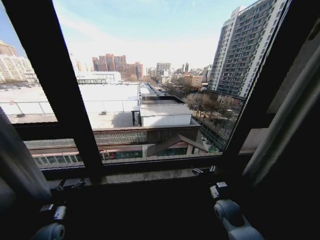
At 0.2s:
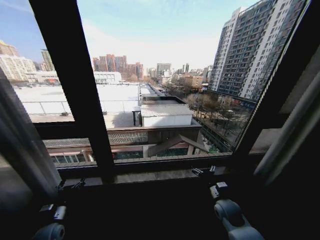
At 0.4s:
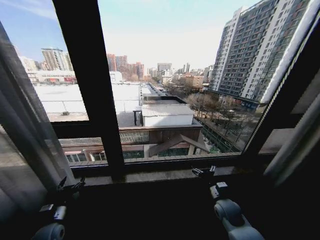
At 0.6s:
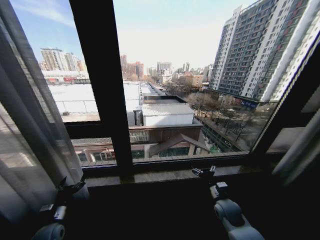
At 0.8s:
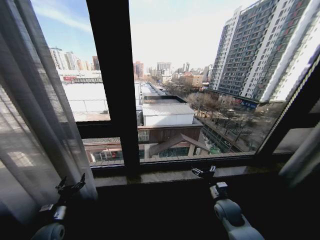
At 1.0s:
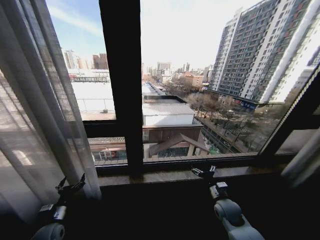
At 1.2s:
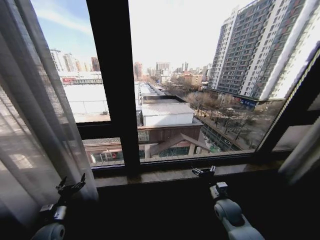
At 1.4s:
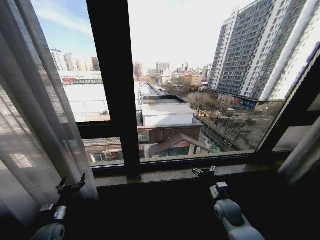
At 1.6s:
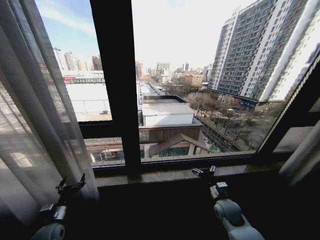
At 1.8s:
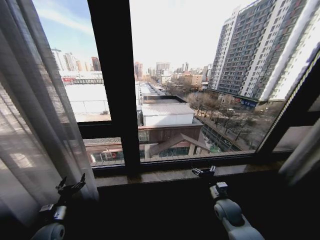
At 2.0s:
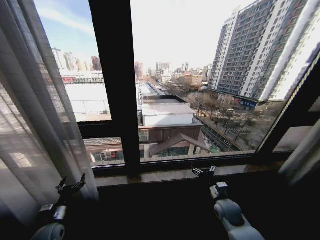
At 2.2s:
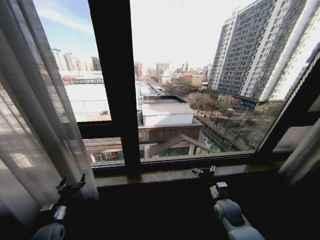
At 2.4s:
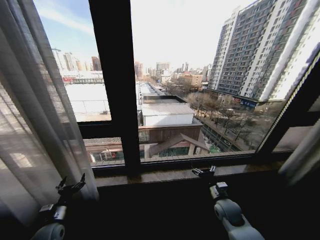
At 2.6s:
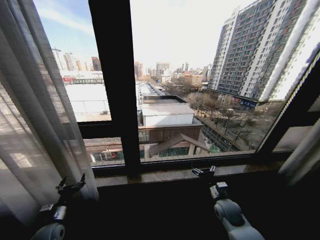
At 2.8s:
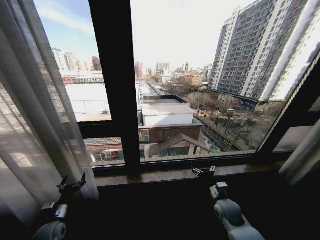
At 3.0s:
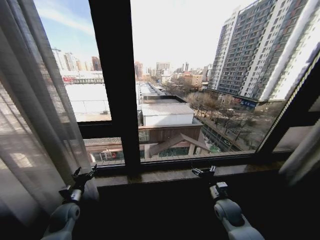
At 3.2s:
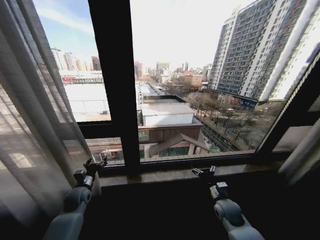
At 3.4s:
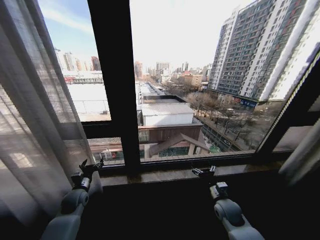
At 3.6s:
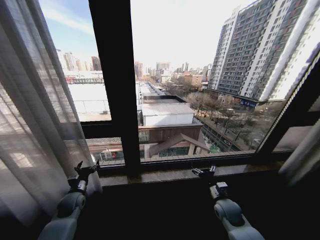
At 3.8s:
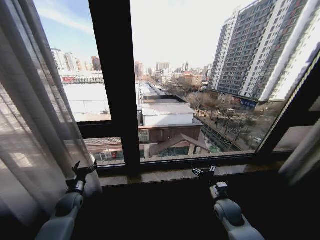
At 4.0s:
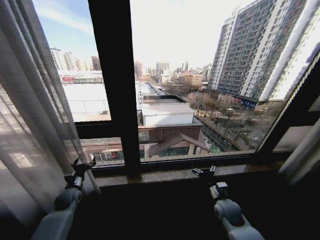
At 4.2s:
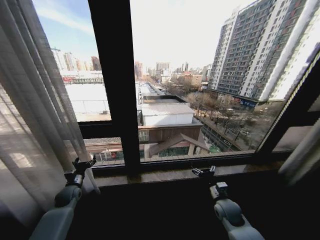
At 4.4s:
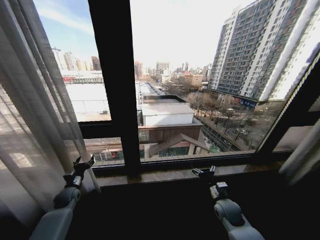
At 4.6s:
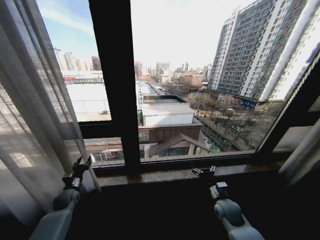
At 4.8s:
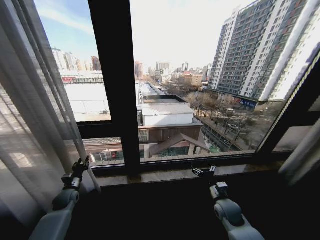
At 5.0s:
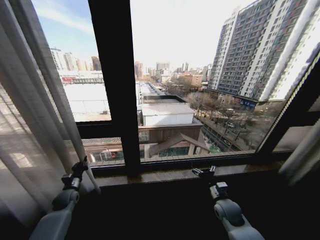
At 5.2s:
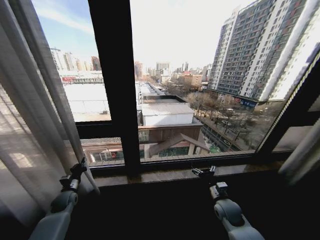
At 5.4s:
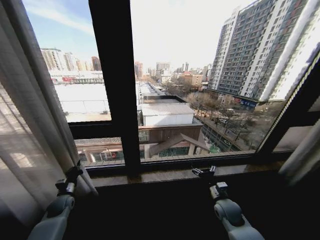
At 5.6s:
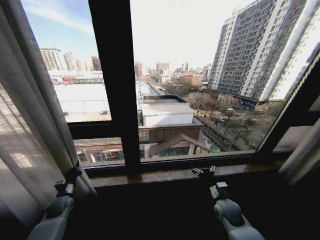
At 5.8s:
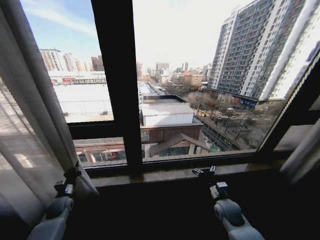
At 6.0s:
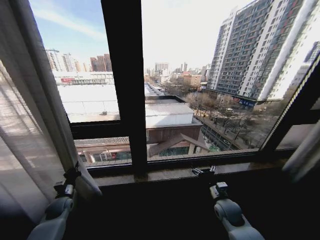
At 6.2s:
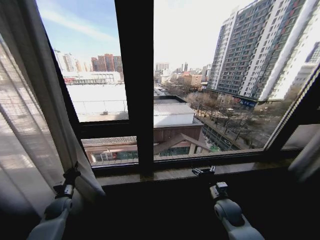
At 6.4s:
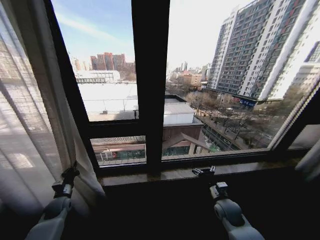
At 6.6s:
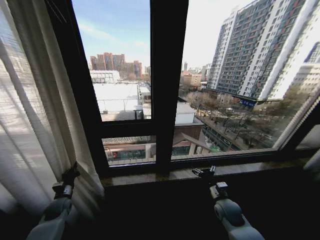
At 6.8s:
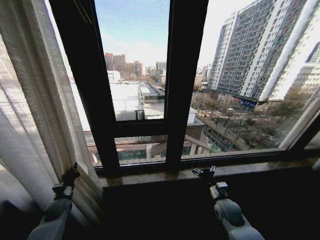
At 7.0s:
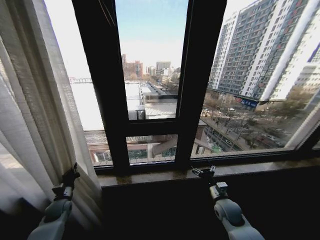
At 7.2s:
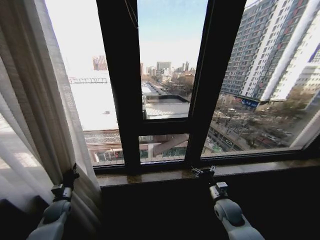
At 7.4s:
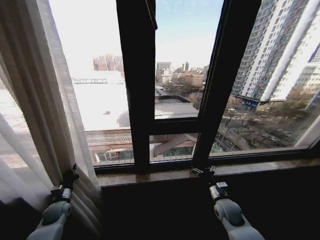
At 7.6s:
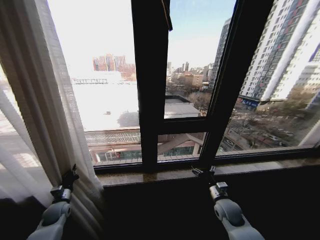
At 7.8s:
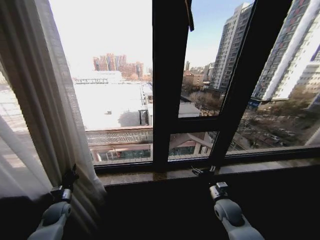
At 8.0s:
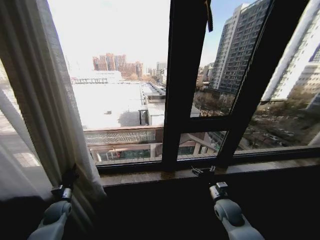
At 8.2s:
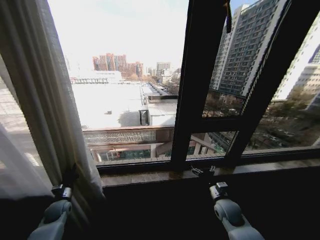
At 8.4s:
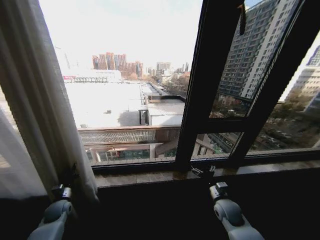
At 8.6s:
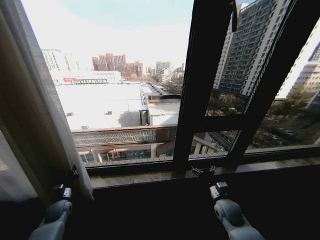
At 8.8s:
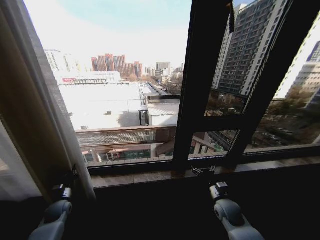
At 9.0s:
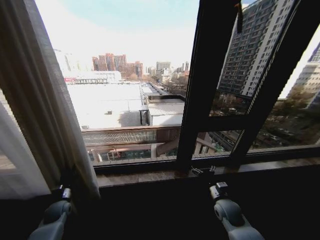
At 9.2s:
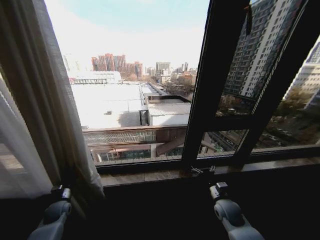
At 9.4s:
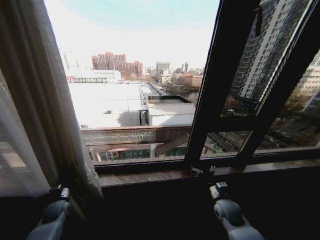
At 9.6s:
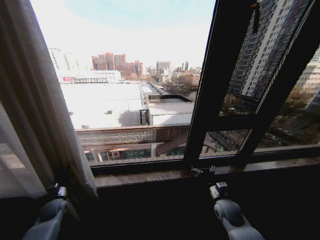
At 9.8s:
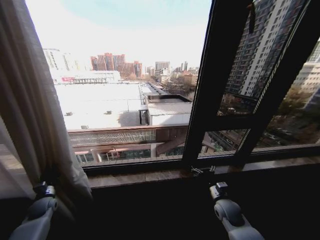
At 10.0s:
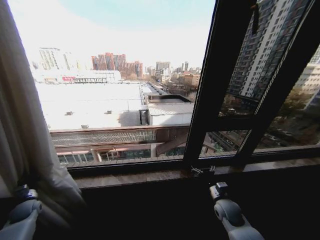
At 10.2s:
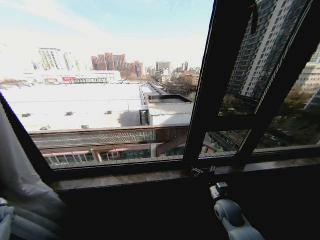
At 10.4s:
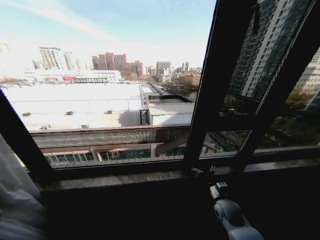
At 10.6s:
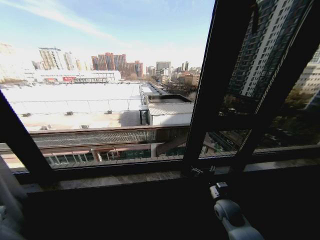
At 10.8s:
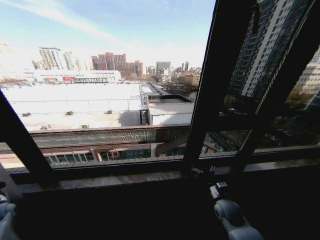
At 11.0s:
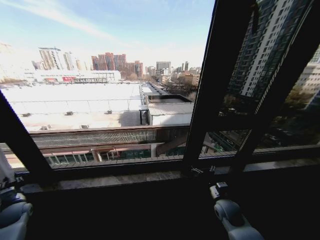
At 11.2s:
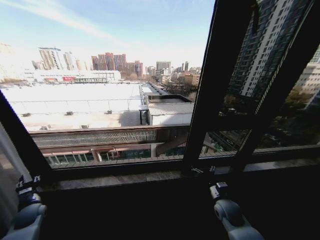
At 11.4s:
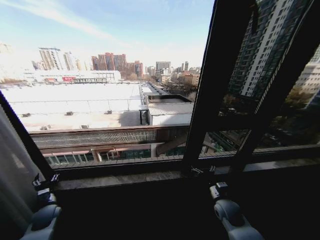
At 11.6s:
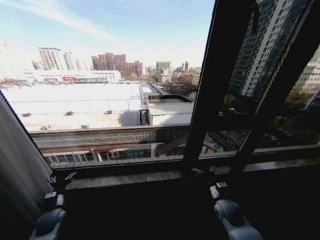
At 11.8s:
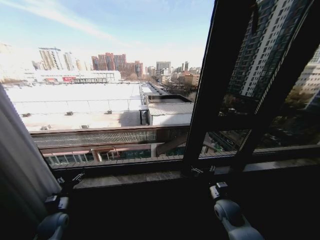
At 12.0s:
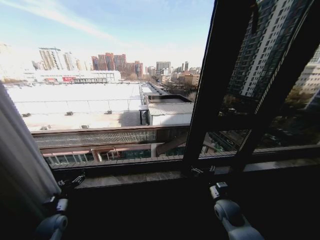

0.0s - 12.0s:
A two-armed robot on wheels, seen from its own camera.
Task of the whole recording: Open the curtains by pulling them apart, changing their state from closed to fully open.
1.6s - 3.0s: The left gripper shifts about 5 cm forward.
3.0s - 4.4s: The left gripper shifts roughly 10 cm forward.
4.4s - 6.0s: The left gripper ends up approximately 5 cm from where it was, and closes.
9.0s - 10.4s: The left gripper travels to the left by approximately 25 cm.
10.4s - 12.0s: The left gripper moves to the right, roughly 25 cm, and opens up.

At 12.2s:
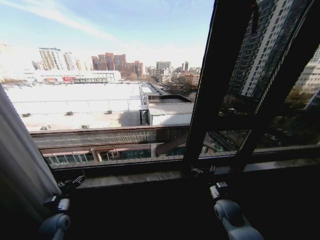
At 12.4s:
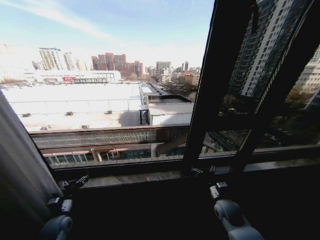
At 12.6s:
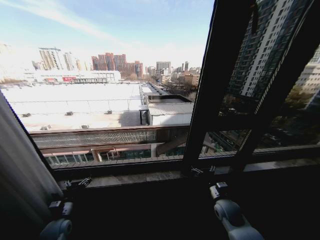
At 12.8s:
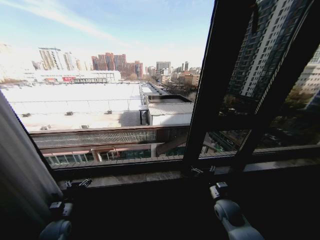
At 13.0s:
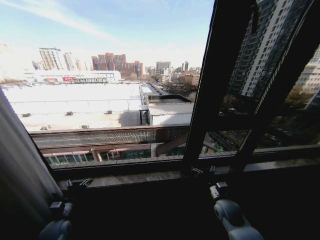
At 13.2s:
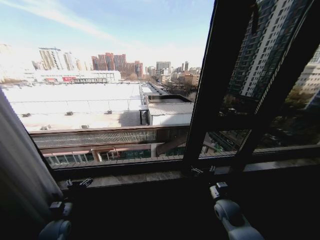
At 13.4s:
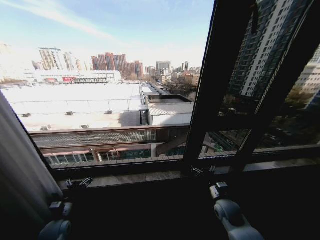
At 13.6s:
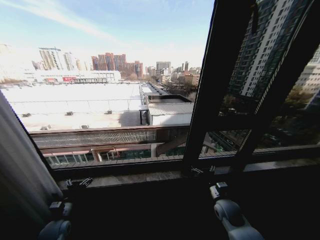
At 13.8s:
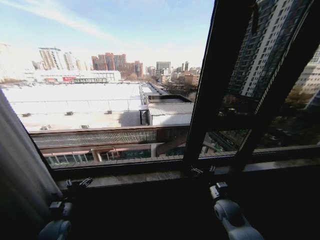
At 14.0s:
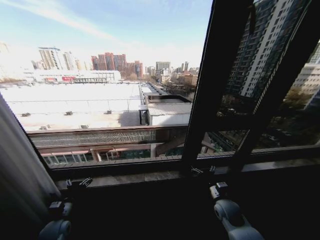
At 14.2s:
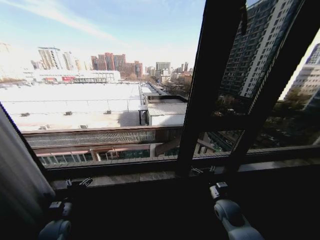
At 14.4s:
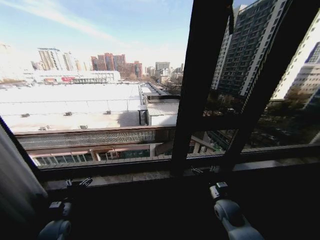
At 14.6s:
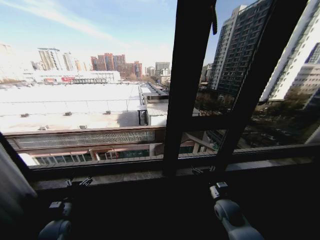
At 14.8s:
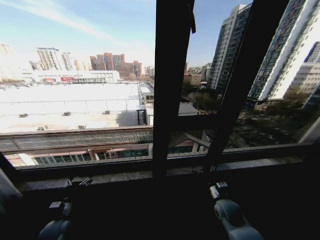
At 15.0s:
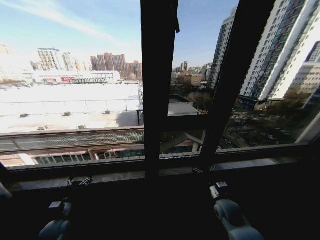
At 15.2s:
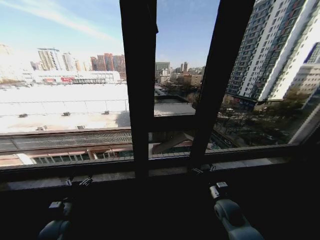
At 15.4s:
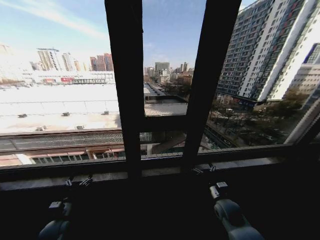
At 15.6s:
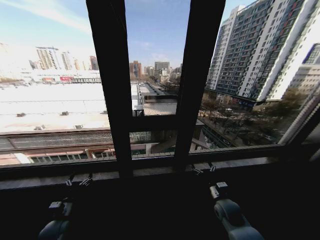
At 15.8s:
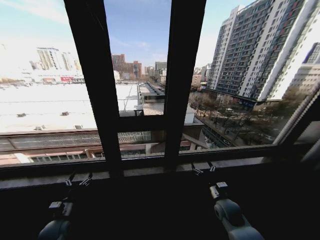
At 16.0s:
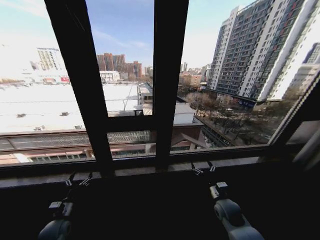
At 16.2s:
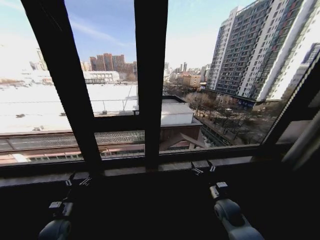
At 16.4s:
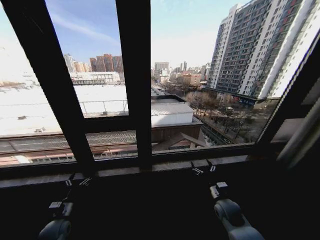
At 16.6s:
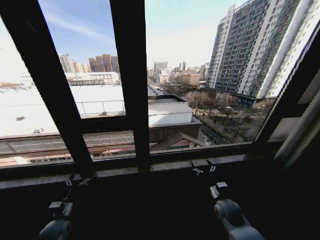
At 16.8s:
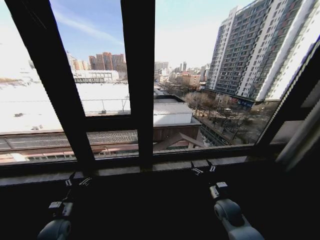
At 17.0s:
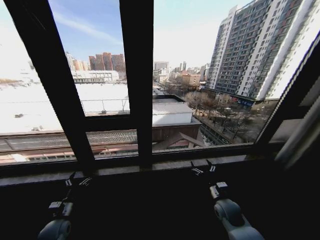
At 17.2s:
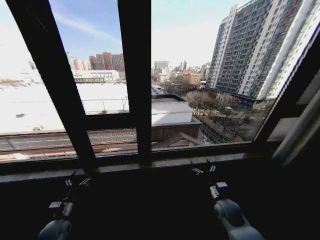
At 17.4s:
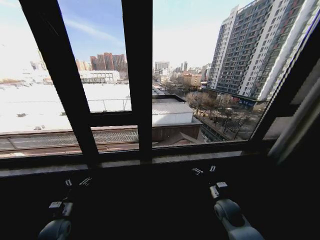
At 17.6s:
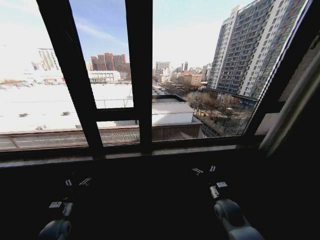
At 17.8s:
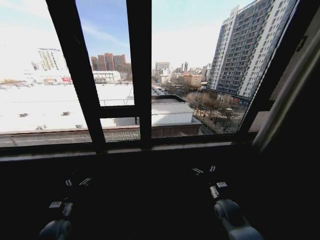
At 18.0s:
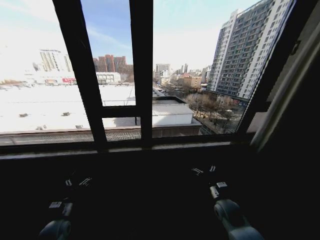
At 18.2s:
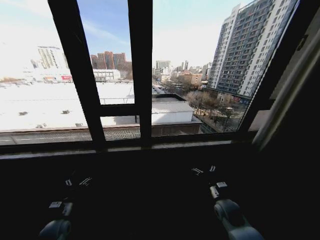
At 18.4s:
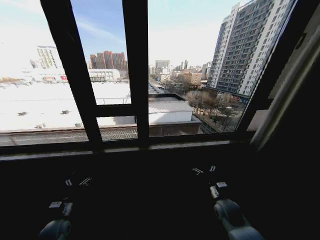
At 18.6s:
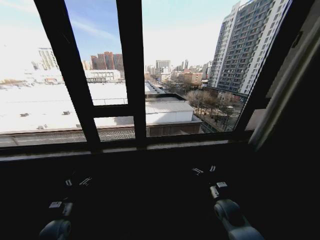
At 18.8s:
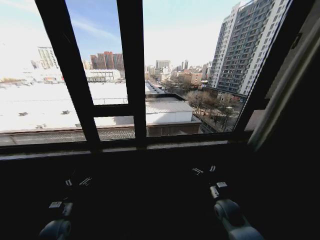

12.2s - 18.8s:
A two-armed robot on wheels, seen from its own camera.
Task of the whole recording: Open the curtains by pulling them apart, changing their state from closed to fully open.
12.2s - 13.8s: The grippers make only small movements.

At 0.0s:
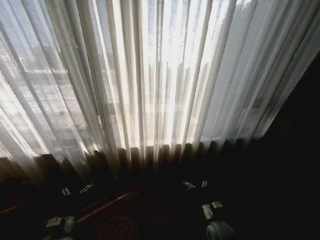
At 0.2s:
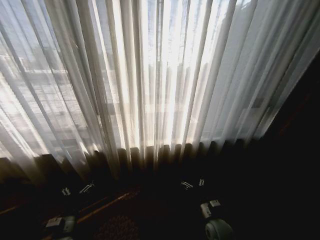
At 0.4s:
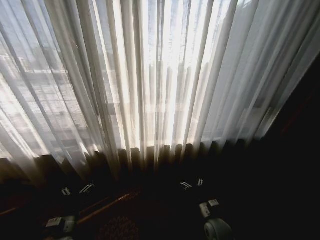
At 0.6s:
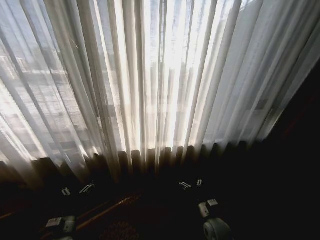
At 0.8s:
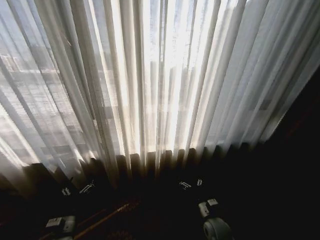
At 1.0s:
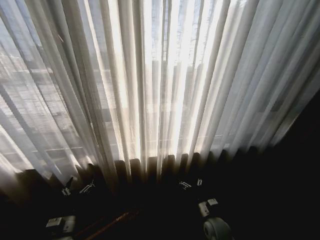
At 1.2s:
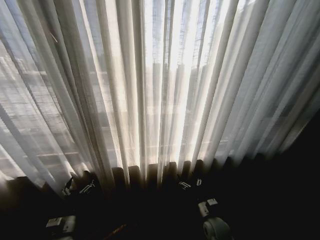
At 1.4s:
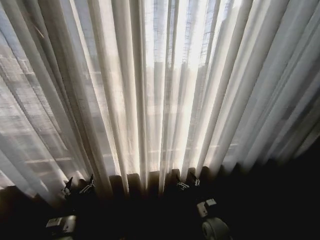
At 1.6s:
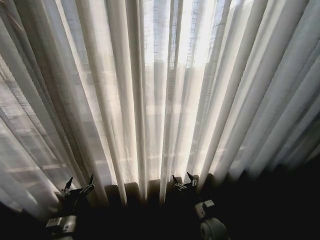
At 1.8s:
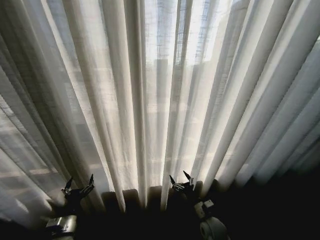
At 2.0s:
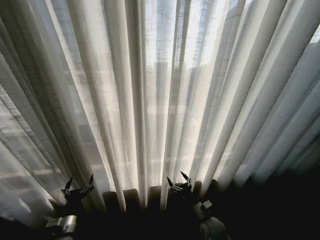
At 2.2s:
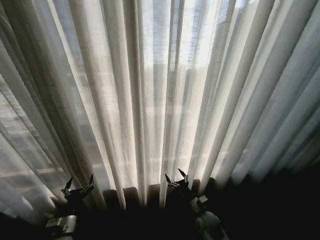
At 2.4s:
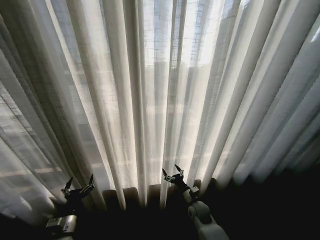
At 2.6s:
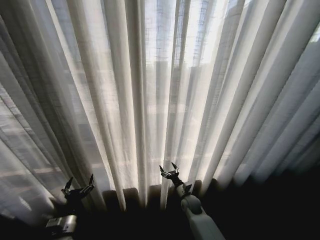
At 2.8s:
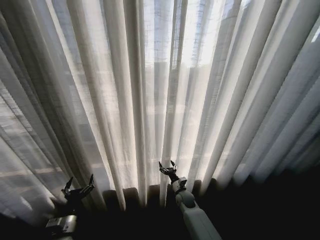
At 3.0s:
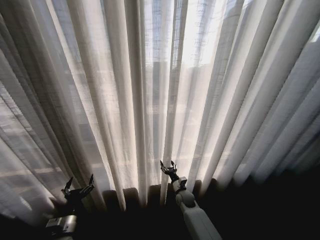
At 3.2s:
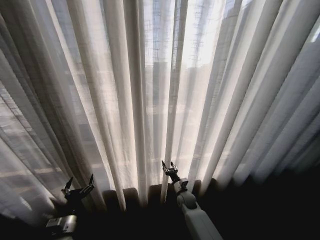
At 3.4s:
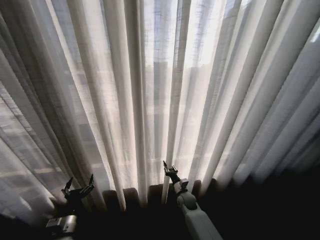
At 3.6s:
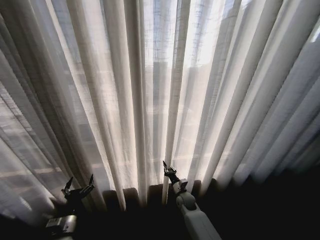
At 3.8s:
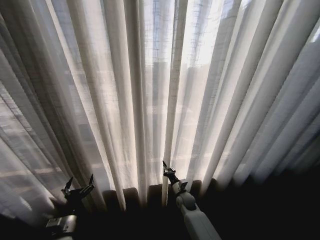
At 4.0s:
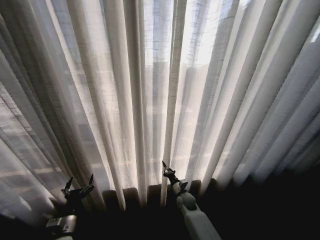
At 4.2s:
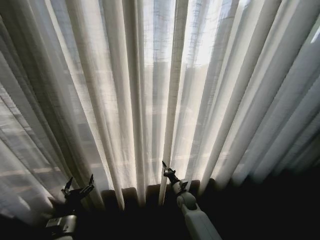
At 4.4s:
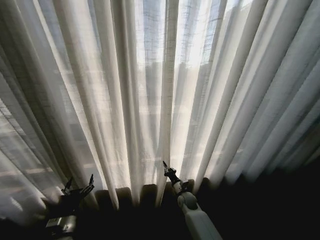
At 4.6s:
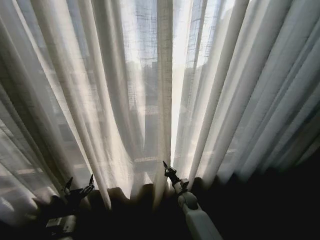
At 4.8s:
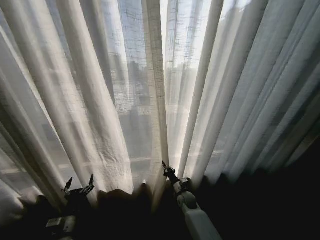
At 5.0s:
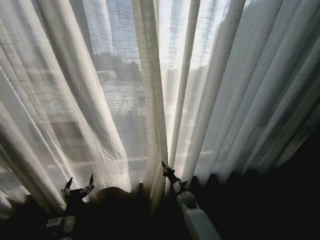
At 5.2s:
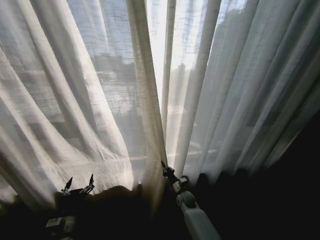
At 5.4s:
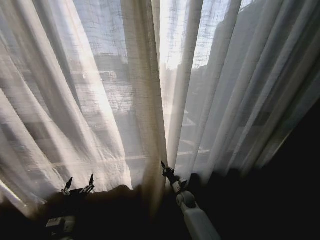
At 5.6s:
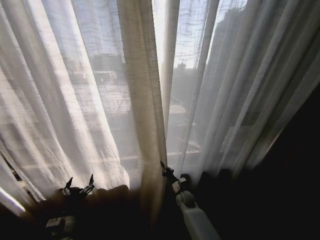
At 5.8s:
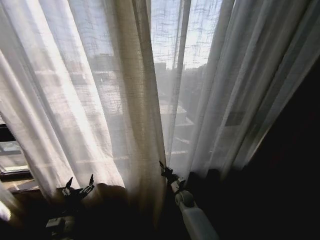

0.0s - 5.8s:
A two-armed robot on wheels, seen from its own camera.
Task of the whole recording: Open the curtains by pulling them apart, changing their state from closed to fully open.
1.4s - 2.8s: The right gripper travels forward and to the left by roughly 15 cm.
2.8s - 4.4s: The right gripper closes its fingers.
